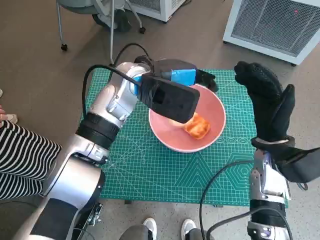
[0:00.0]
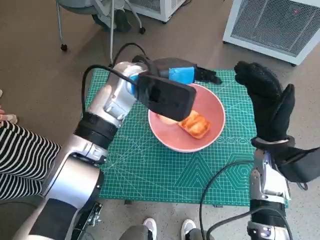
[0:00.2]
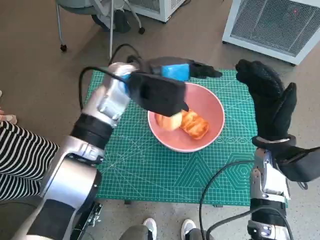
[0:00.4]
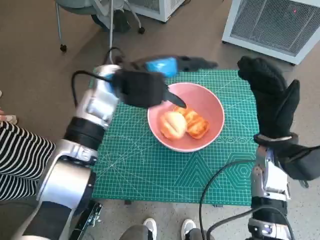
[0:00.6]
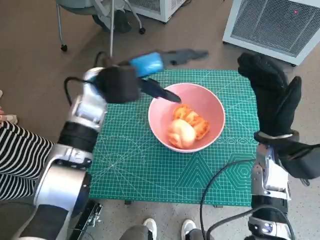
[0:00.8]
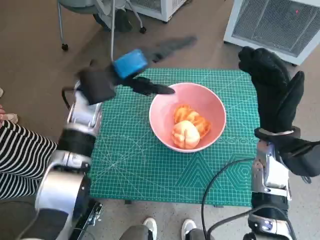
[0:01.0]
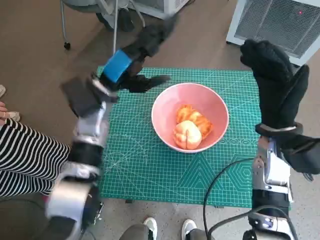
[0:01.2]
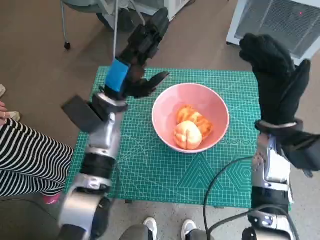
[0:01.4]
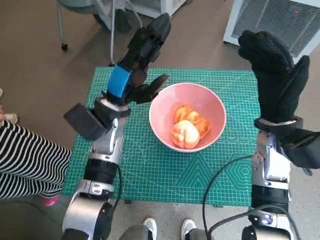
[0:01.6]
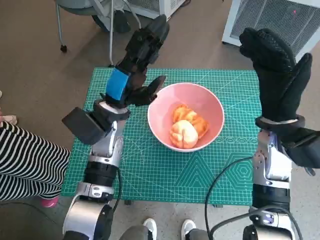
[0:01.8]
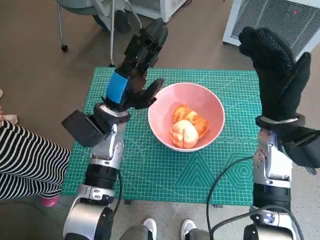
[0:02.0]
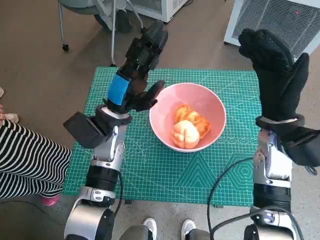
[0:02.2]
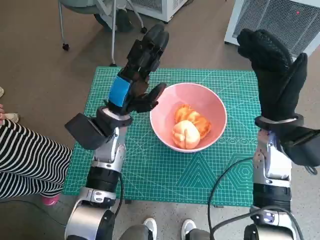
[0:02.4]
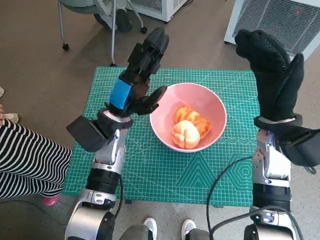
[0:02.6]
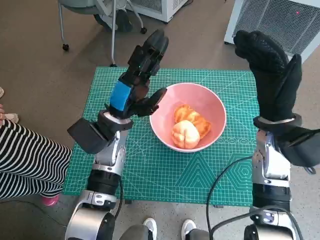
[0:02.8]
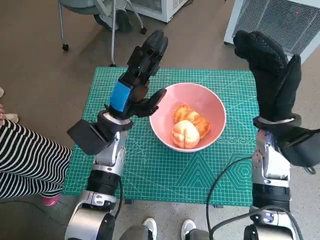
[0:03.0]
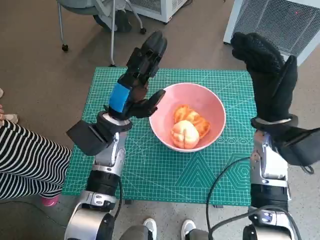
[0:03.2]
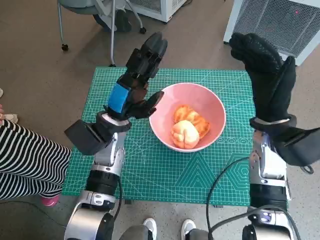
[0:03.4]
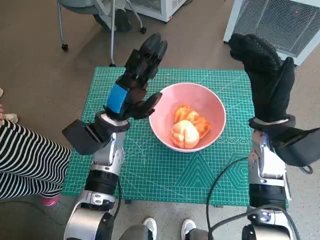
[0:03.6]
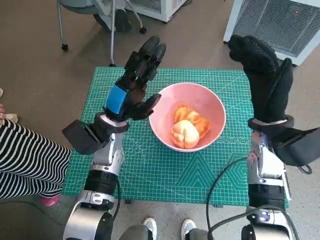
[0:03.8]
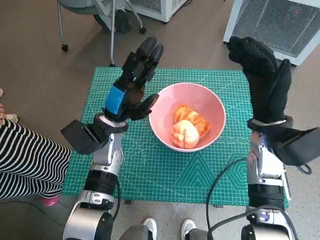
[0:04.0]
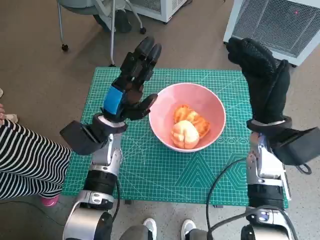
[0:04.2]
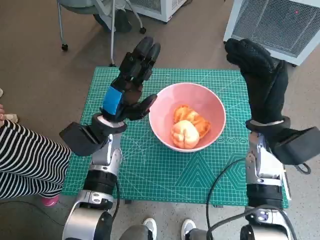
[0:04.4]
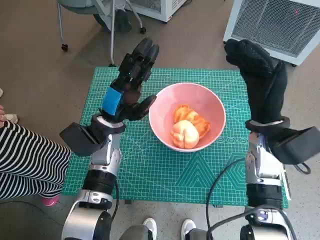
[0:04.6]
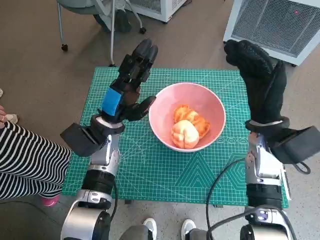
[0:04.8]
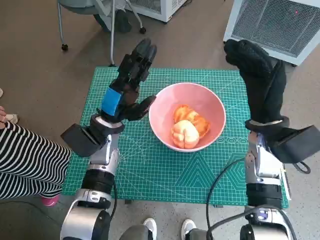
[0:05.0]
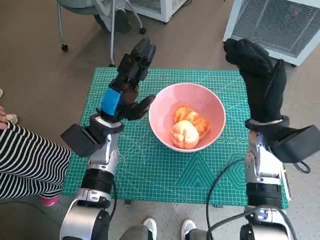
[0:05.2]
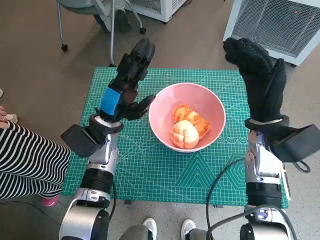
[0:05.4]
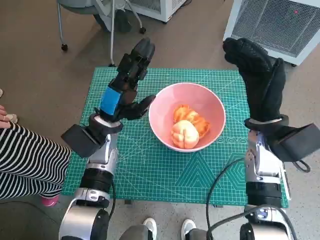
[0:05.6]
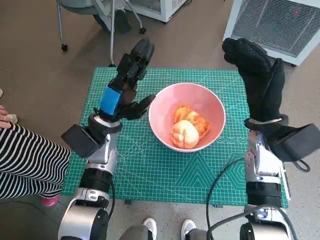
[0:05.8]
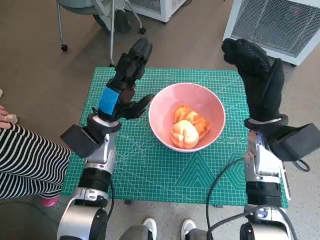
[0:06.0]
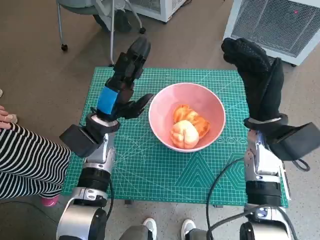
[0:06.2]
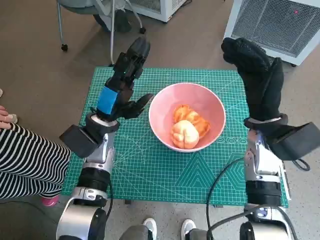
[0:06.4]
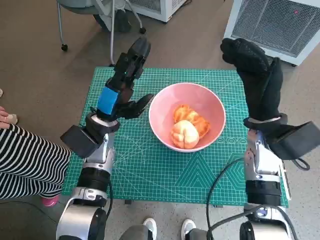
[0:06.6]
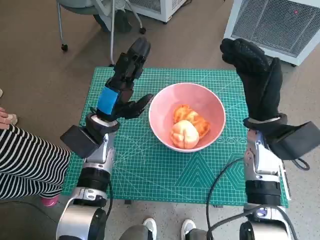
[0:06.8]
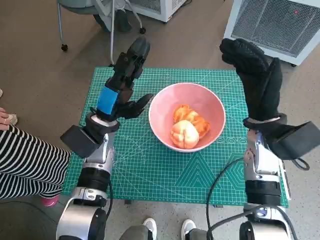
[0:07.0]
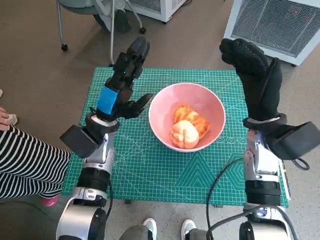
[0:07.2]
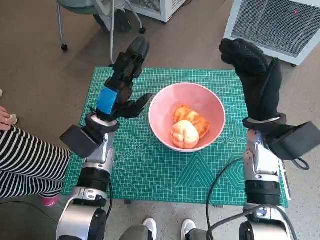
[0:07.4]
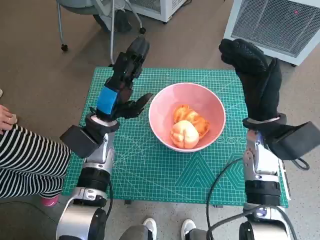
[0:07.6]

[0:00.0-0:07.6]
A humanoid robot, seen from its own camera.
Task of the whole recording: Push the bowl into the center of the table and put the bread into the bowl.
0:00.0 to 0:01.6: The left hand goes about 10 cm downward and to the left.
0:01.6 to 0:06.0: The hands stay close to where they were, moving slightly.
0:06.0 to 0:07.6: Both hands stay about where they are.

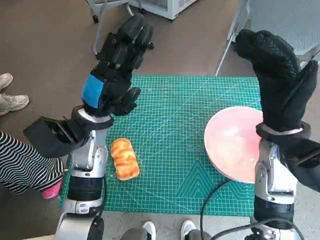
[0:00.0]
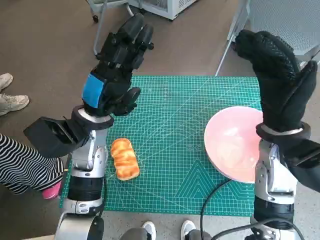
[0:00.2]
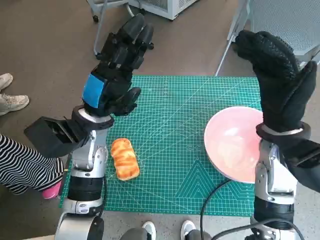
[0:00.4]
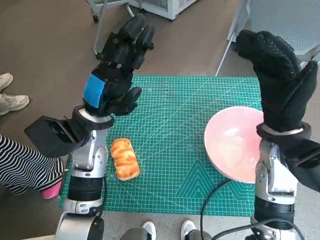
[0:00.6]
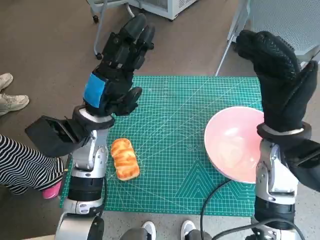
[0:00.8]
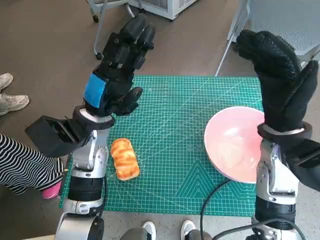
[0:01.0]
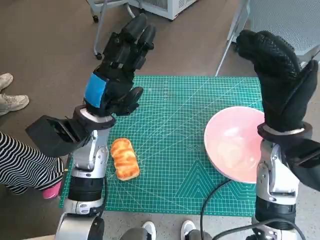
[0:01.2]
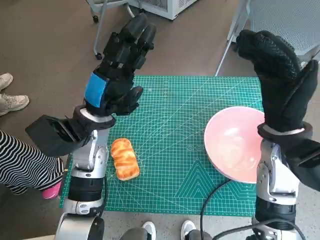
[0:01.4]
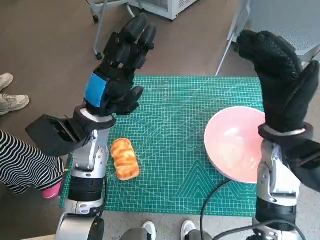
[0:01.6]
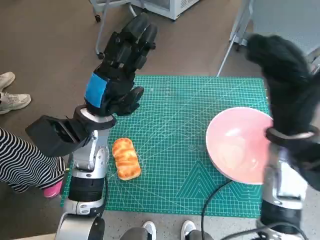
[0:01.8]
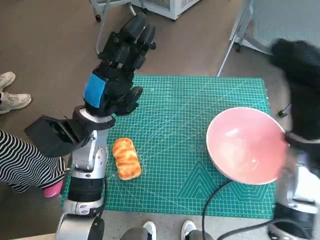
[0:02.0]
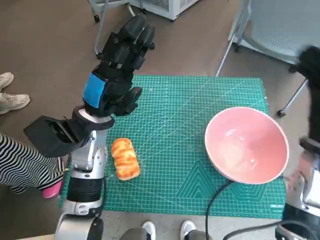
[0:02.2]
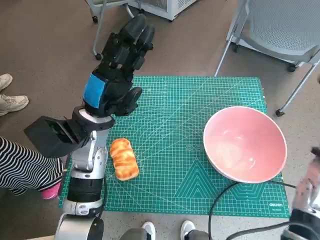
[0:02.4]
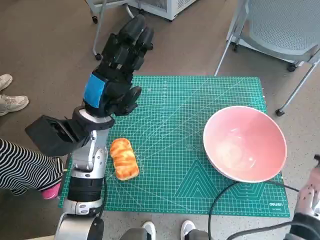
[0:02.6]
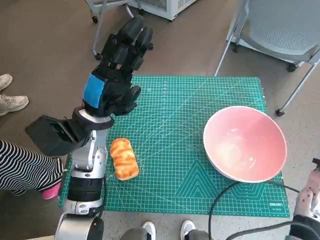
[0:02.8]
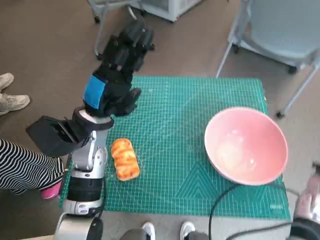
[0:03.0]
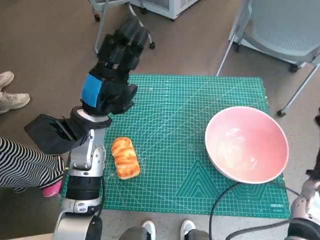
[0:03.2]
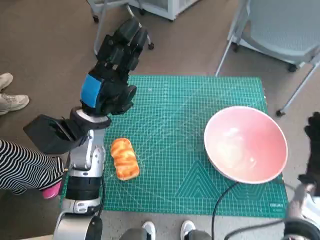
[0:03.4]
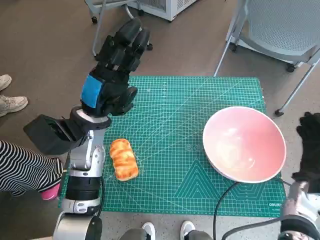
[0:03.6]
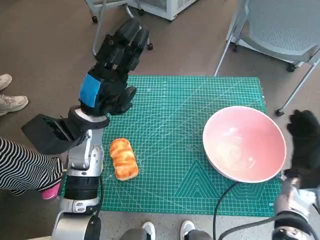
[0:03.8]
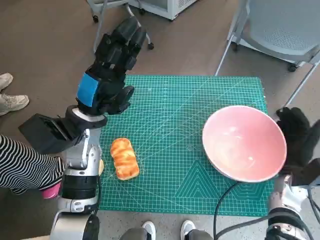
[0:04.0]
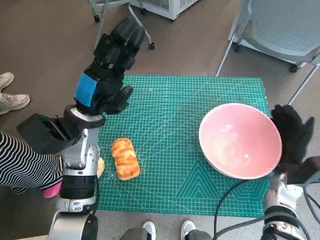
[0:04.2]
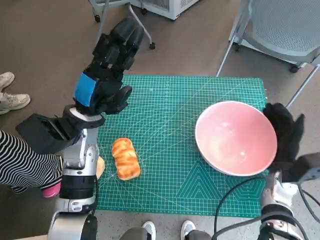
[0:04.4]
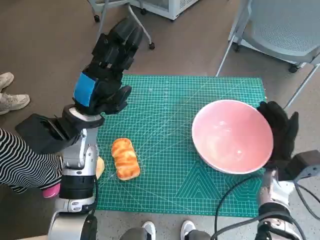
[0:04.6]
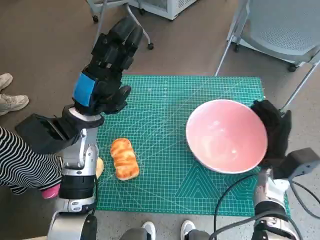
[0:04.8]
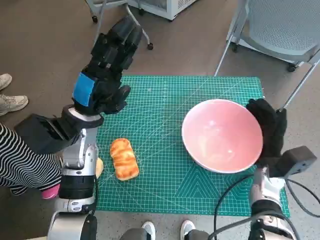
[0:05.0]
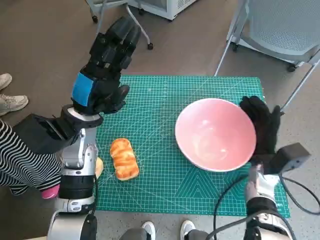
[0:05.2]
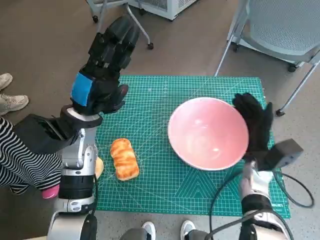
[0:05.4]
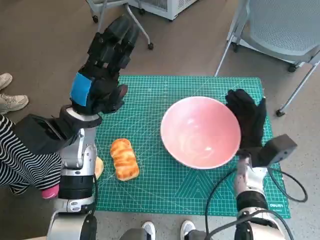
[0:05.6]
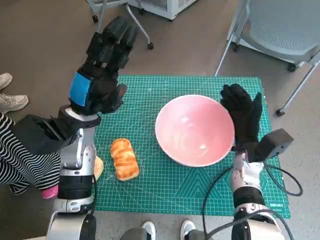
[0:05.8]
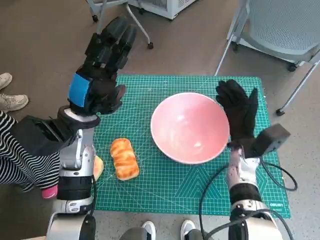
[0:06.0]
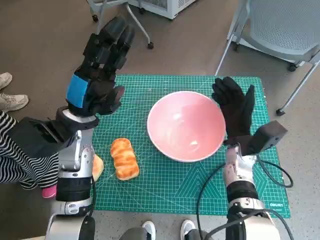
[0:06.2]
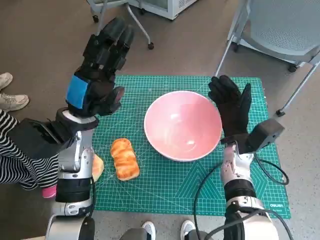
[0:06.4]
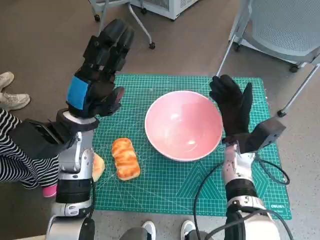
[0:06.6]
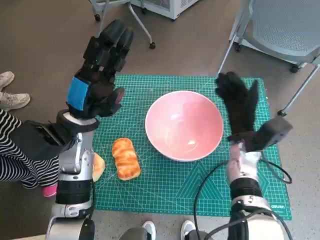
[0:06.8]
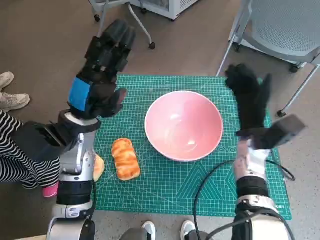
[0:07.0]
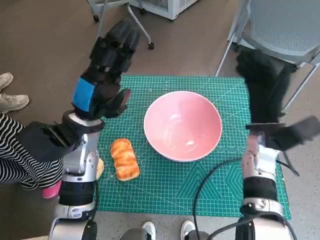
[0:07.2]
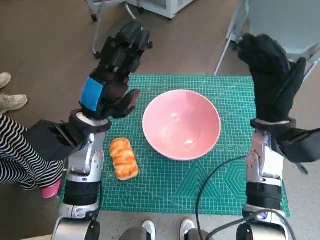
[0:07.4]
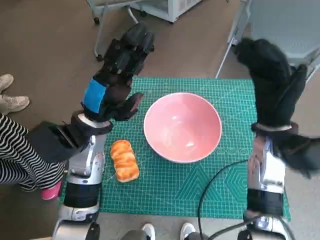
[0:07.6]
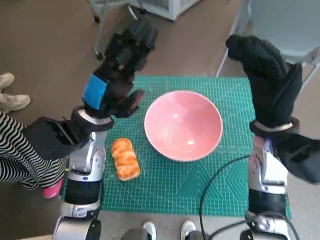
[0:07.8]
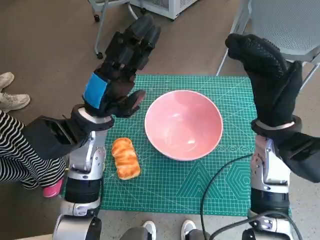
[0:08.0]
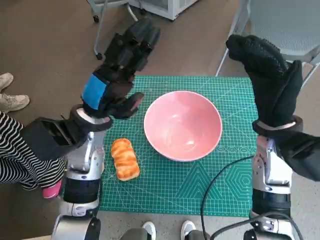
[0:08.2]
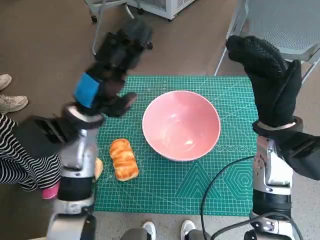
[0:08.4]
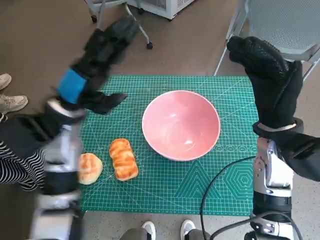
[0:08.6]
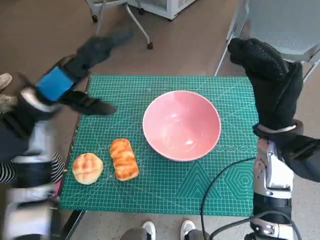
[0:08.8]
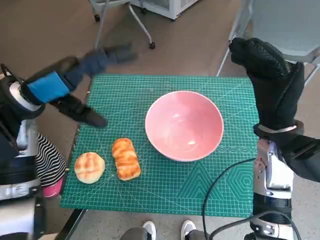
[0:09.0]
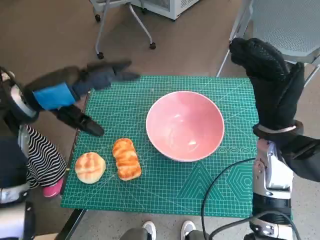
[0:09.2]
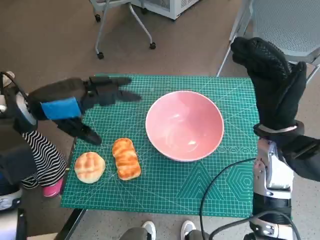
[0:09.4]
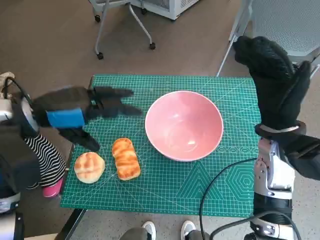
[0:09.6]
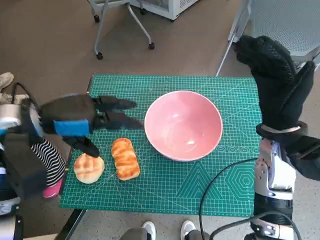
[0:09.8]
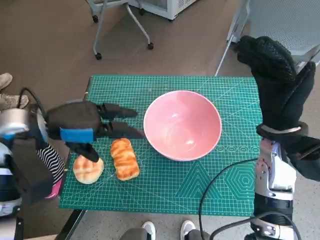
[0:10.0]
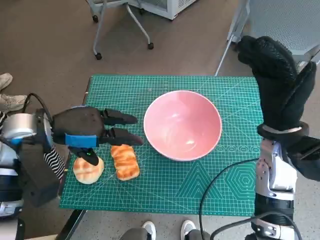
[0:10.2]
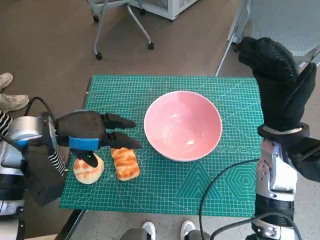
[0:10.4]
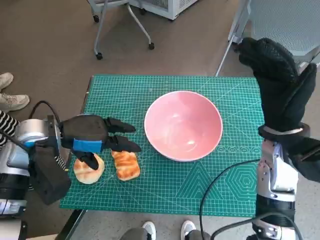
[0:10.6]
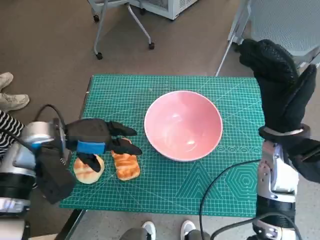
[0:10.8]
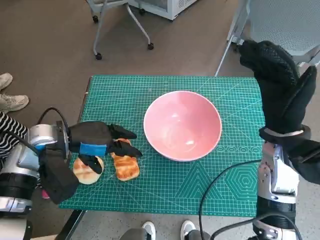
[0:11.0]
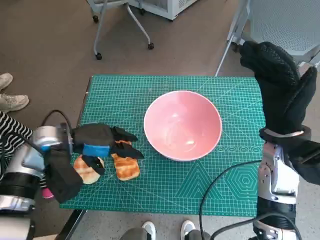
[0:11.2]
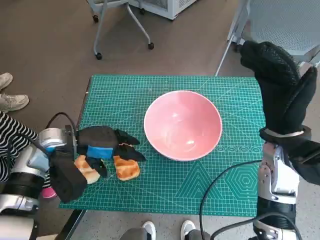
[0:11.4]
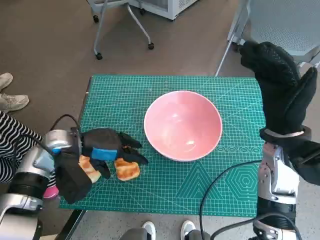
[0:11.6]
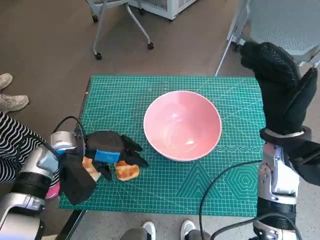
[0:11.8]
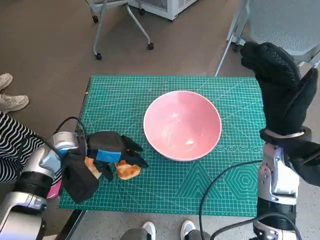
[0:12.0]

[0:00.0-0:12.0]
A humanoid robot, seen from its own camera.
Task of the whole recording: Push the bowl into the center of the table and put the bread into the bowl.
Step, 0:00.0 to 0:06.8: Move the pink bowl to the center of table with right hand.
0:01.6 to 0:03.0: The right hand travels to the right and downward by roughly 15 cm.
0:03.0 to 0:04.4: The right hand goes some 10 cm downward.
0:04.4 to 0:06.0: The right hand shifts approximately 10 cm to the left.
0:06.0 to 0:07.6: The right hand heads upward, covering approximately 10 cm.
0:07.6 to 0:09.0: The left hand heads to the left and upward, covering roughly 10 cm.
0:09.0 to 0:10.4: The left hand moves some 5 cm.
0:10.4 to 0:12.0: The left hand goes approximately 10 cm downward.

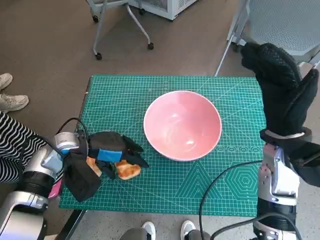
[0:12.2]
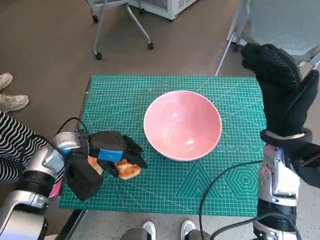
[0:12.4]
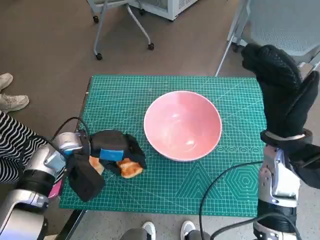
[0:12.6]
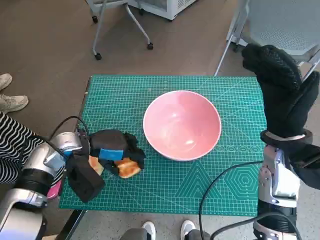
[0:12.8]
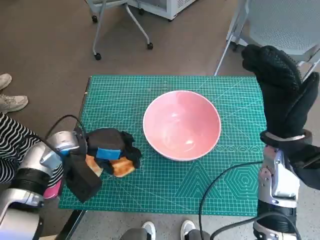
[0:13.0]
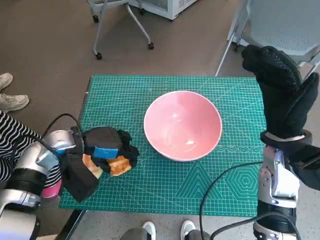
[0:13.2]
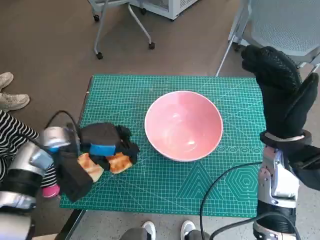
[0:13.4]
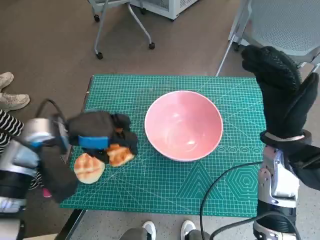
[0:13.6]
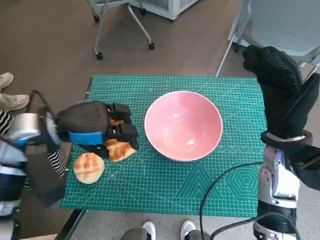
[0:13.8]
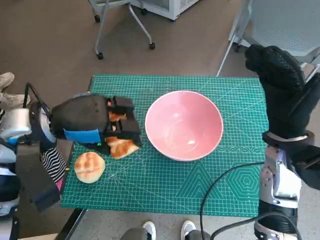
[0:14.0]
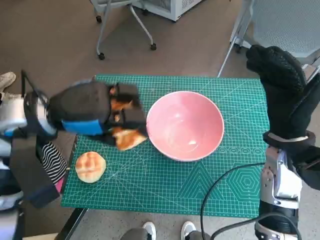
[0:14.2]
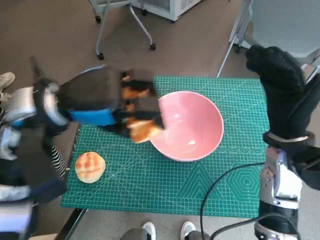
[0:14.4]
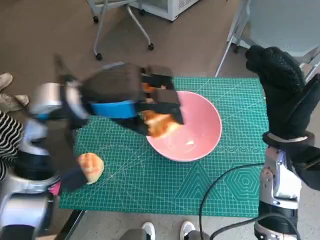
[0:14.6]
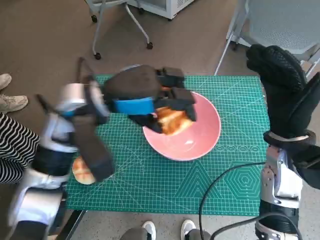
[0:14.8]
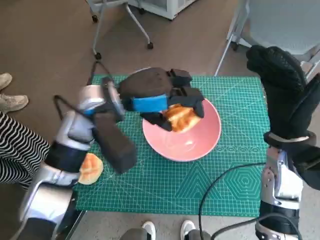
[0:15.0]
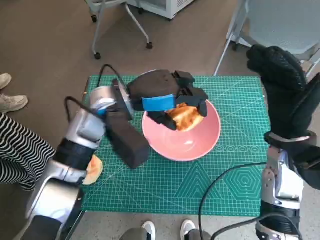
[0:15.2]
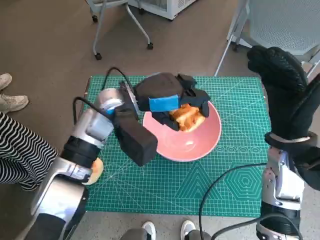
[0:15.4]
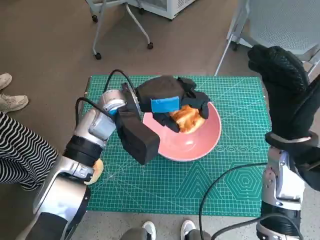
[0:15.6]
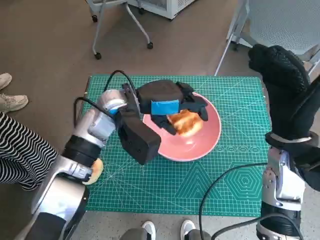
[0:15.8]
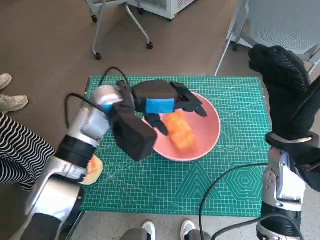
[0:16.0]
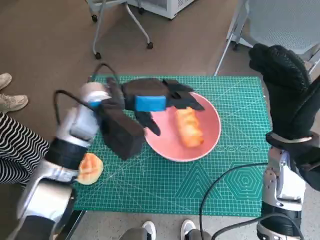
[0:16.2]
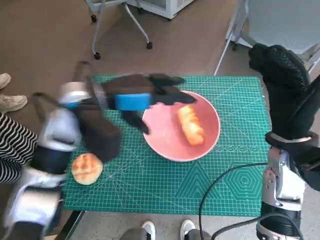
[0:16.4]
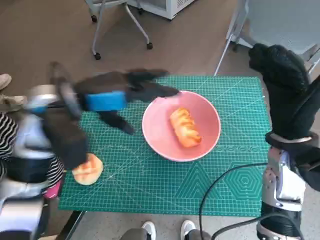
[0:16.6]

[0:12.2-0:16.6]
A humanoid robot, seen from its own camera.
Task of the whole recording: Push the bowl into the center of the table and put the bread into the bowl.
Step, 0:12.8 to 0:16.0: Place the long bread in pink bowl with left hand.
0:12.2 to 0:13.6: The left hand shifts some 5 cm upward.
0:13.6 to 0:15.2: The left hand goes some 10 cm to the right.
0:15.2 to 0:16.6: The left hand goes roughly 5 cm to the left.
